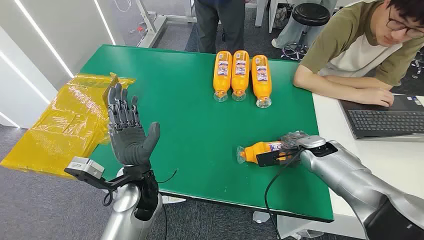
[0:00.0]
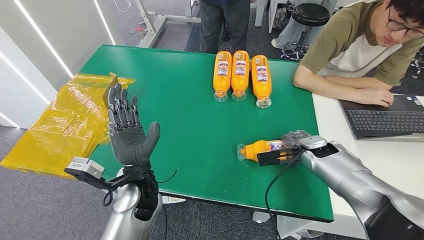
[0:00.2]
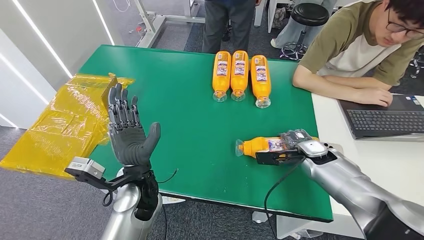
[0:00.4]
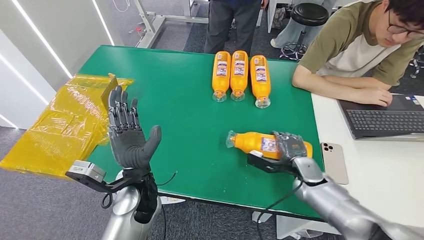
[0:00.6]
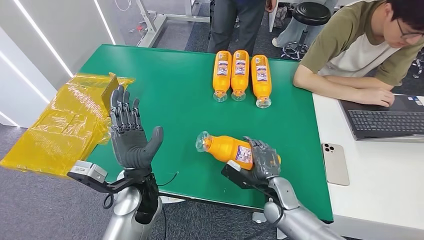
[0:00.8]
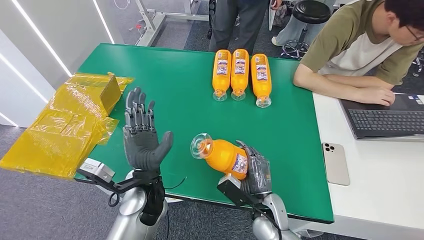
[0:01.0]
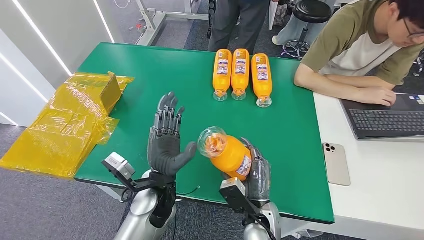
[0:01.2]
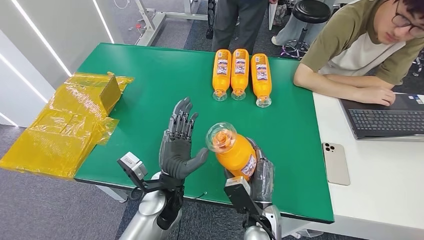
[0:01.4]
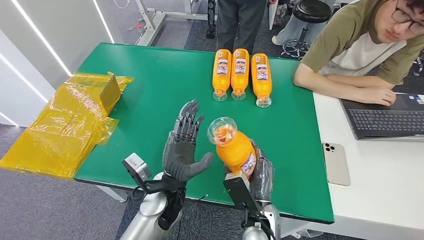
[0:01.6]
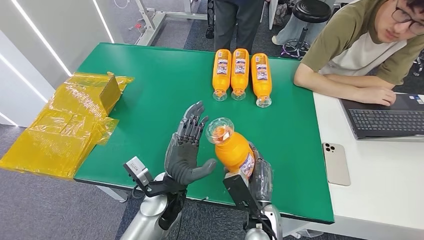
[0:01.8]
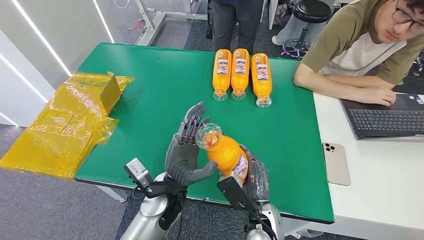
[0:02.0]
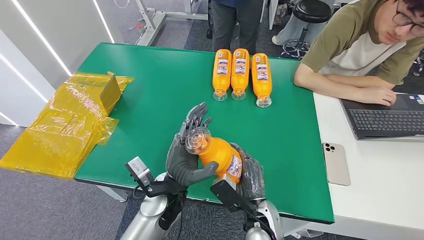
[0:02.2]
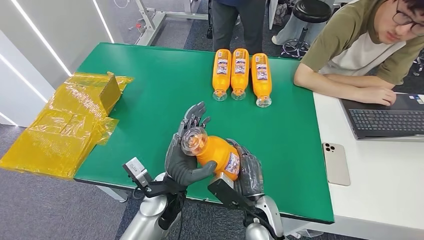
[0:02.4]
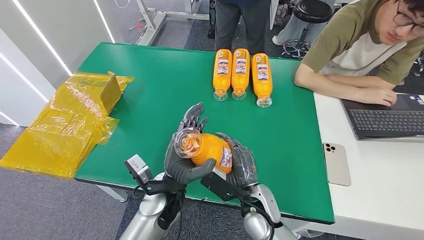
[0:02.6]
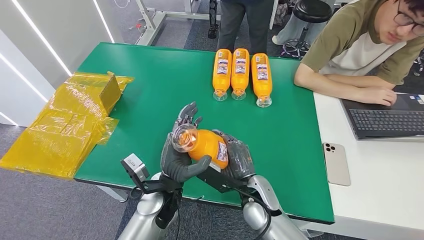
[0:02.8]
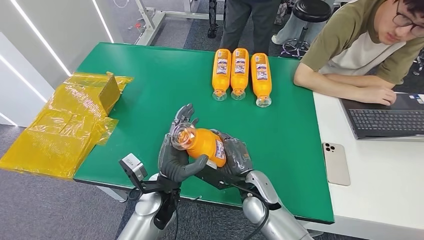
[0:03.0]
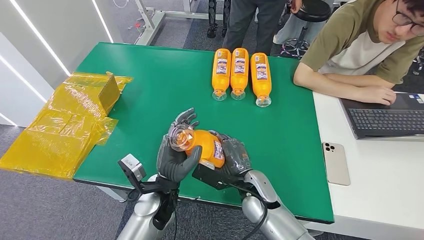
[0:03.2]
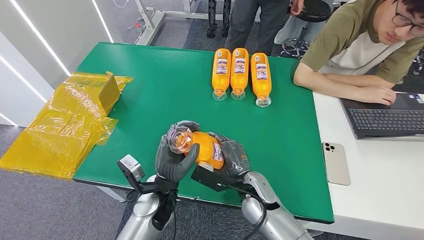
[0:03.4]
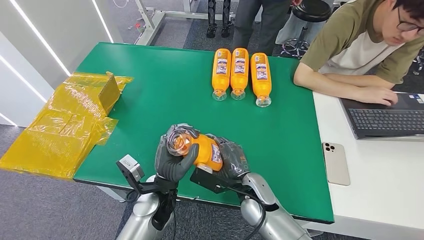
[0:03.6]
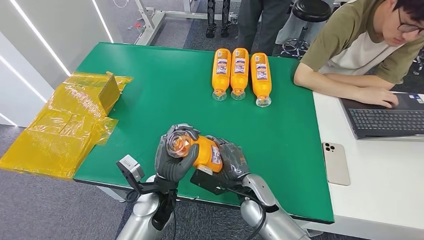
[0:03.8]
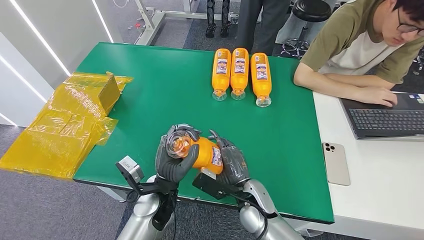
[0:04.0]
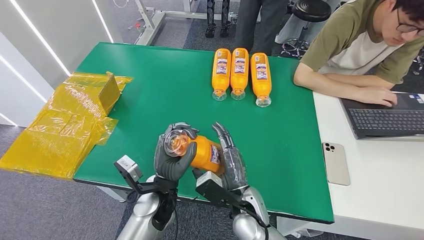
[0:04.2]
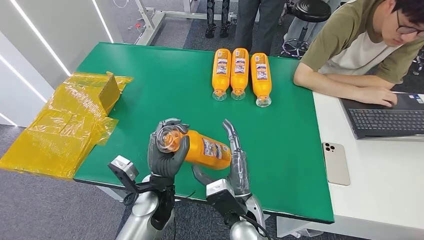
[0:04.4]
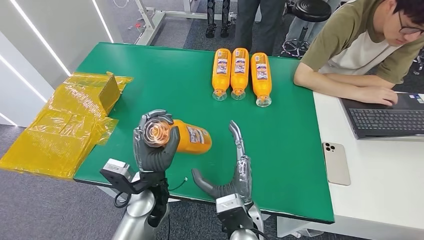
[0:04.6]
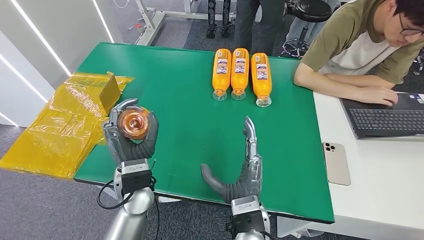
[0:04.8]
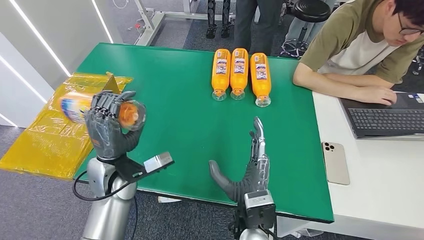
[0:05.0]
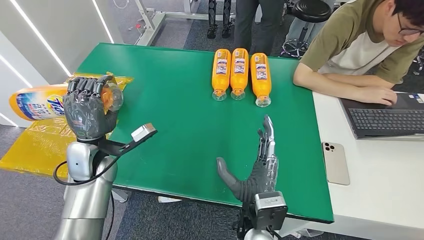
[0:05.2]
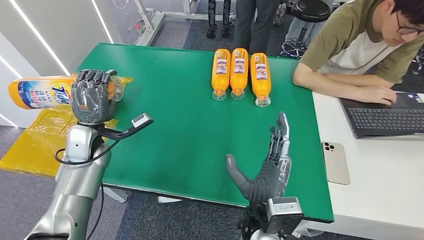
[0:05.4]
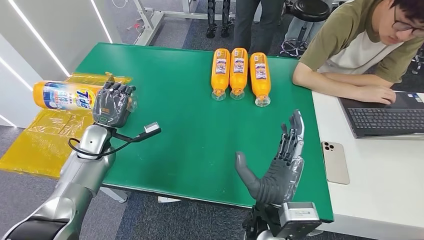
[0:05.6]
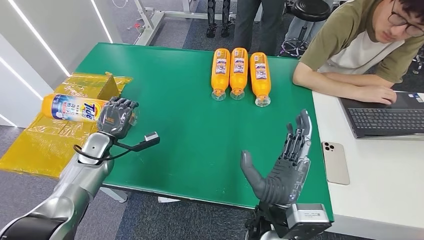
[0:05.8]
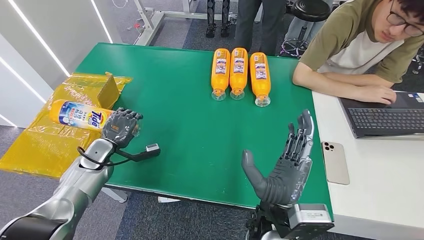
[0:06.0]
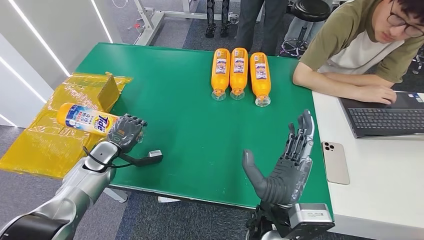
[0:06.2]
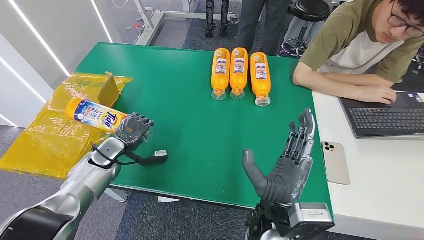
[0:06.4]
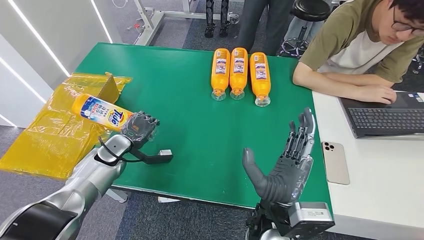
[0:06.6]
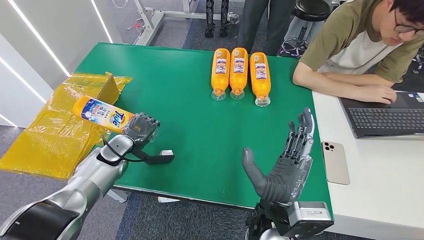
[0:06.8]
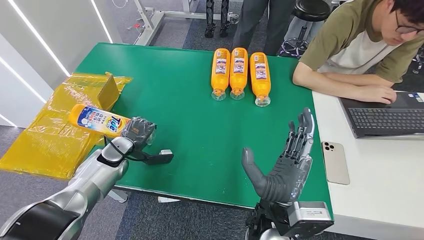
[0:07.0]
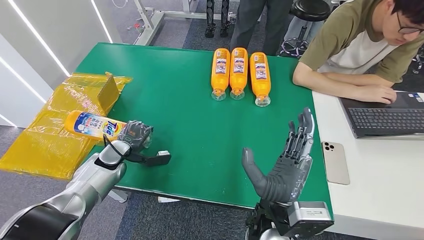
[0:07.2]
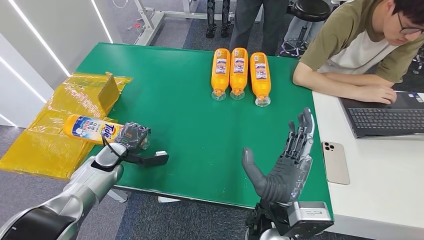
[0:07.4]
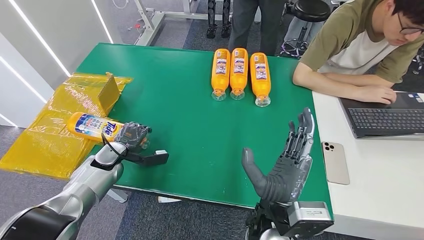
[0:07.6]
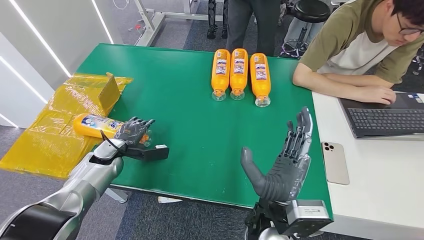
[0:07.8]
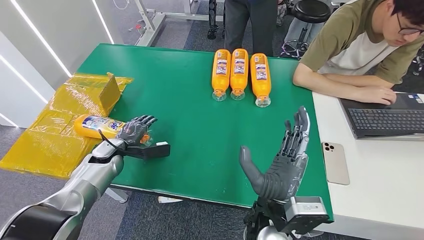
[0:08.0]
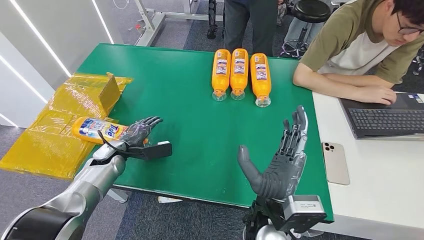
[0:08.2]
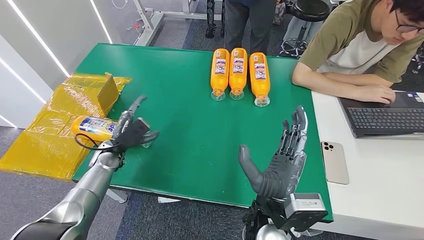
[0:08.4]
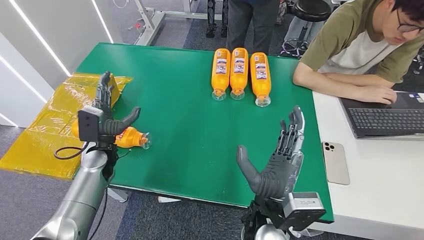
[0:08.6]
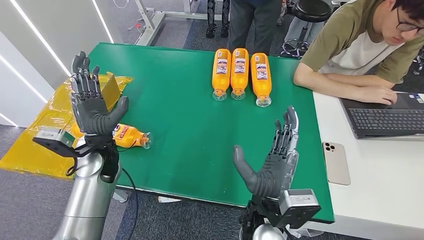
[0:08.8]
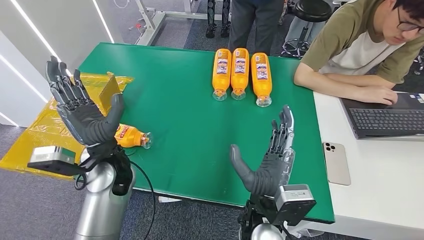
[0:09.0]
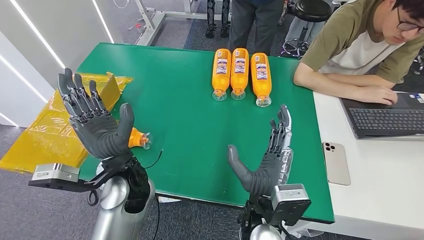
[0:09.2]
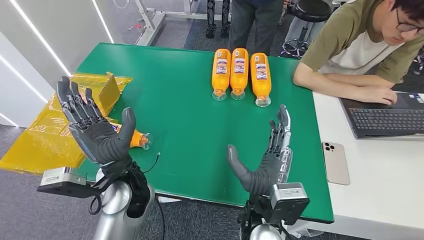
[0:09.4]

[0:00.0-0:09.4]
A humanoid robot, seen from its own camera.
Step, 0:00.0 to 0:02.2: Pick up the bottle from the table.
Step, 0:02.4 to 0:09.2: Turn the bottle to the front side.
0:01.6 to 0:03.2: The right hand shifts about 10 cm forward.
0:03.2 to 0:04.8: The left hand travels upward by about 5 cm, while the right hand travels backward by roughly 10 cm.
0:04.8 to 0:06.2: The right hand moves some 5 cm, while the left hand is displaced to the left and downward by some 25 cm.
0:07.8 to 0:09.4: The left hand is displaced to the right, upward and backward by approximately 25 cm.
